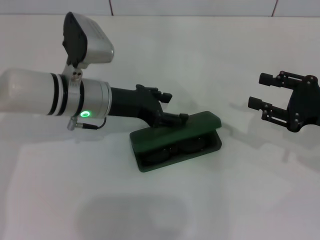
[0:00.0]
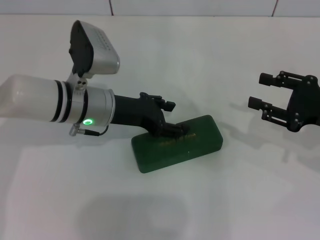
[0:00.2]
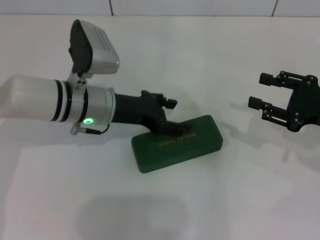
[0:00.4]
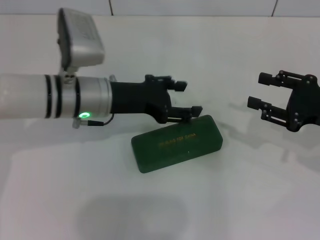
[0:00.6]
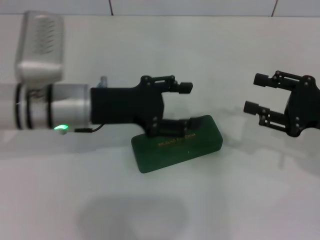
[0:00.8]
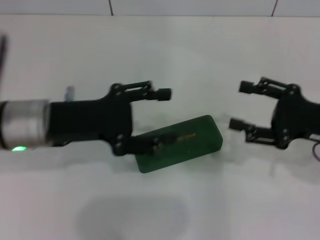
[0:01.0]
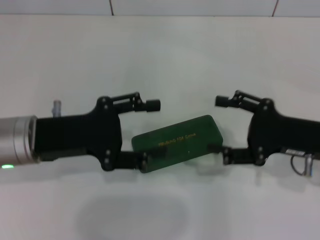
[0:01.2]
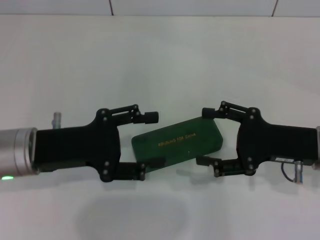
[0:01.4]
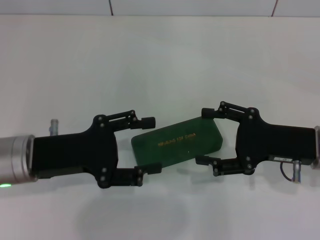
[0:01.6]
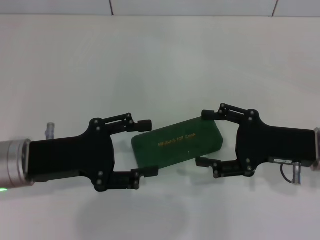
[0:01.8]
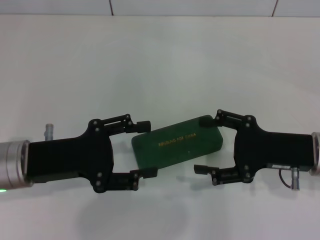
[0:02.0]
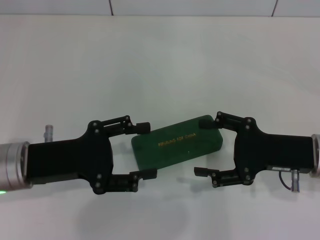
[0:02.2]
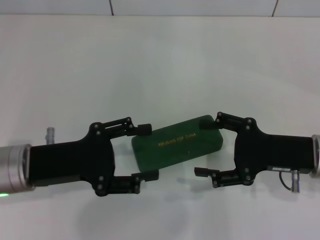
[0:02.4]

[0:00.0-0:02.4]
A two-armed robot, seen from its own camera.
0:00.0 to 0:01.2: The right gripper heads to the left, covering roughly 5 cm. The left gripper heads backward and to the left, covering some 10 cm.

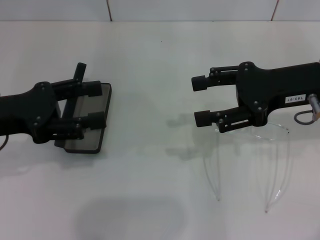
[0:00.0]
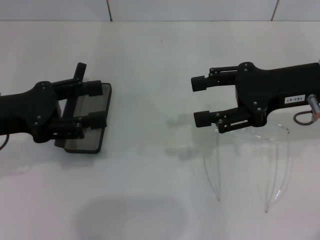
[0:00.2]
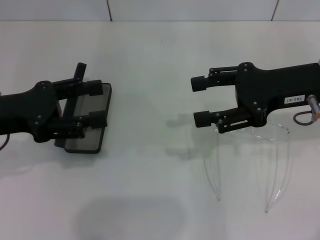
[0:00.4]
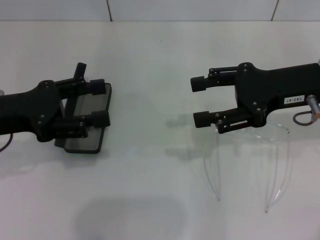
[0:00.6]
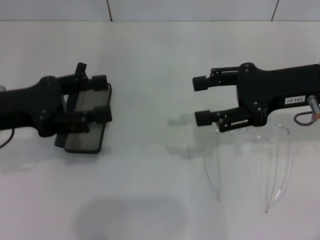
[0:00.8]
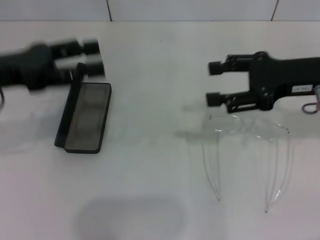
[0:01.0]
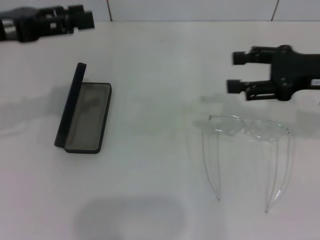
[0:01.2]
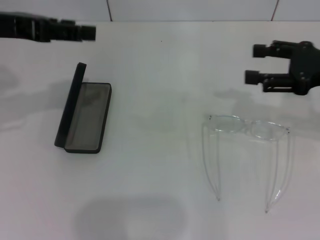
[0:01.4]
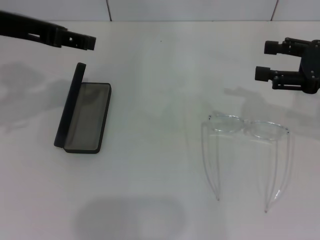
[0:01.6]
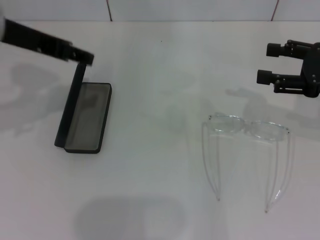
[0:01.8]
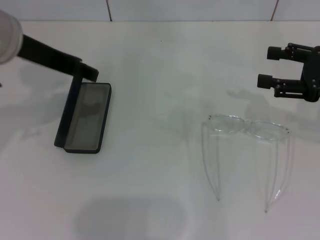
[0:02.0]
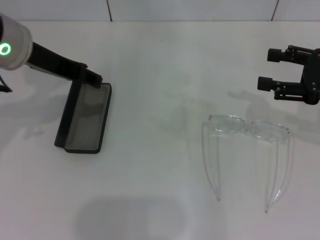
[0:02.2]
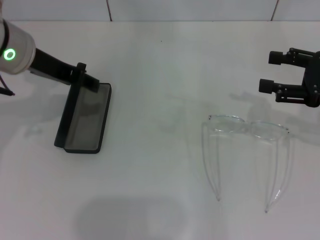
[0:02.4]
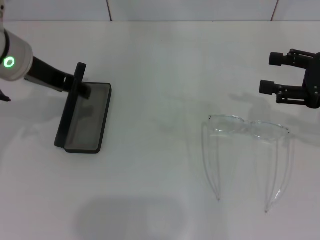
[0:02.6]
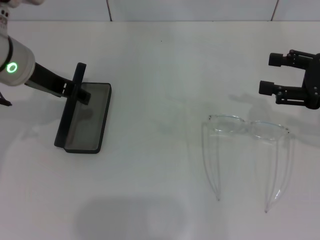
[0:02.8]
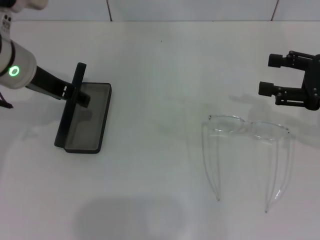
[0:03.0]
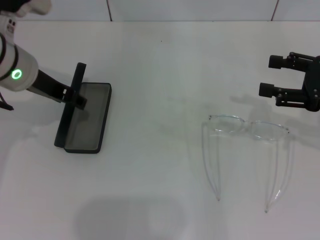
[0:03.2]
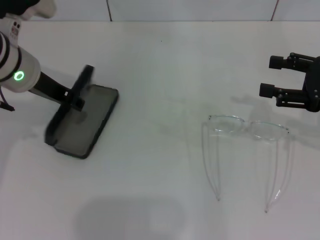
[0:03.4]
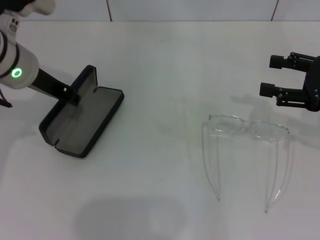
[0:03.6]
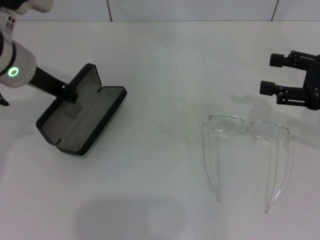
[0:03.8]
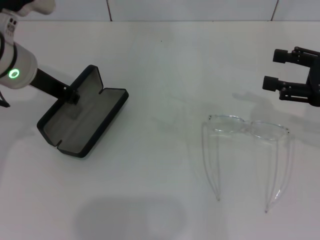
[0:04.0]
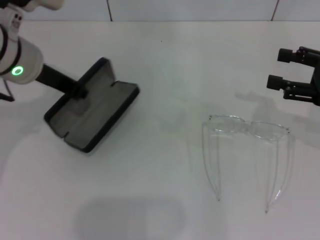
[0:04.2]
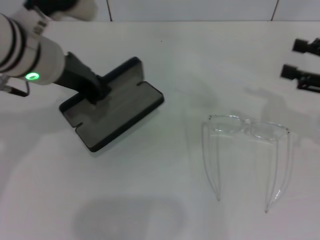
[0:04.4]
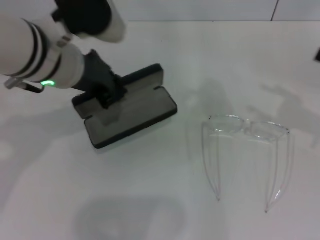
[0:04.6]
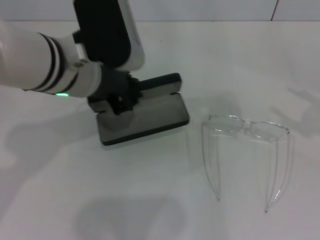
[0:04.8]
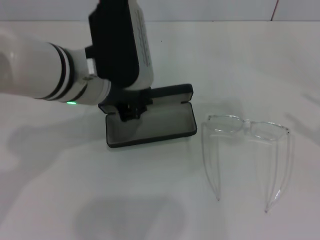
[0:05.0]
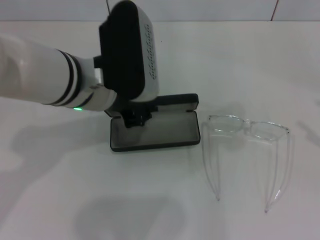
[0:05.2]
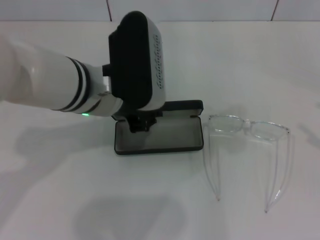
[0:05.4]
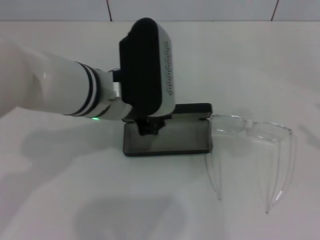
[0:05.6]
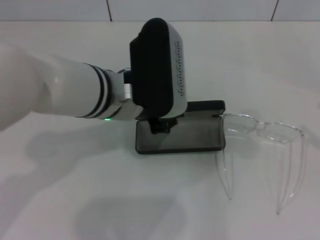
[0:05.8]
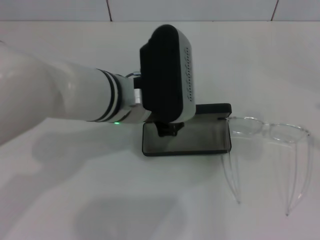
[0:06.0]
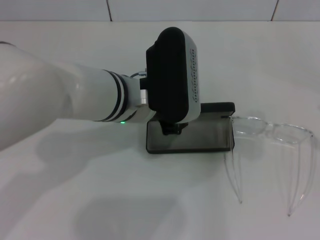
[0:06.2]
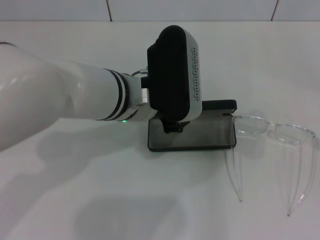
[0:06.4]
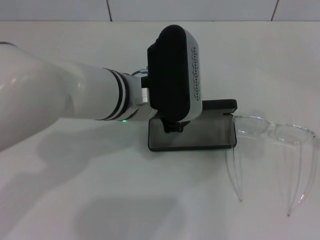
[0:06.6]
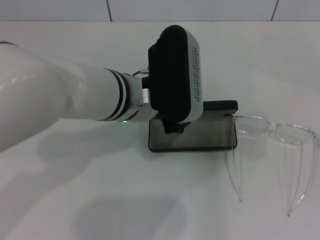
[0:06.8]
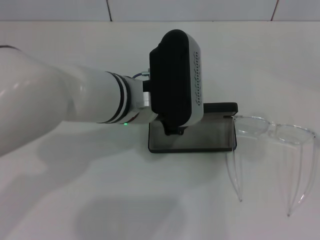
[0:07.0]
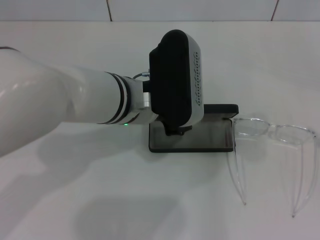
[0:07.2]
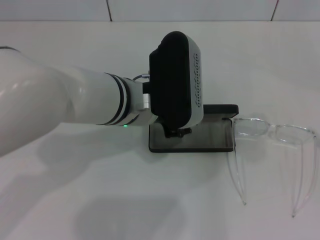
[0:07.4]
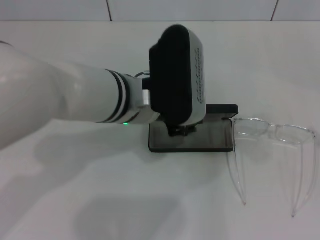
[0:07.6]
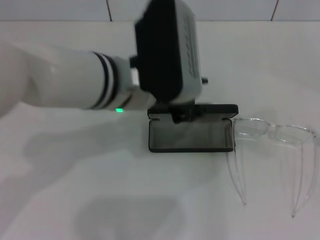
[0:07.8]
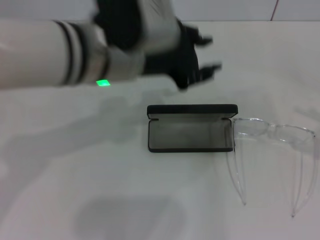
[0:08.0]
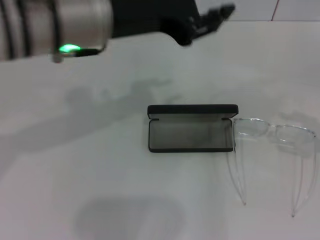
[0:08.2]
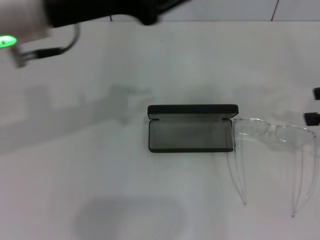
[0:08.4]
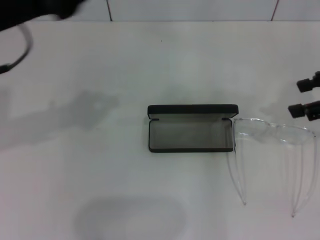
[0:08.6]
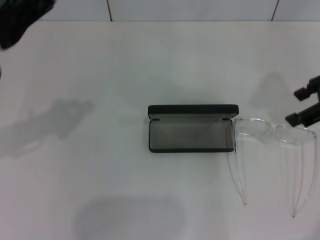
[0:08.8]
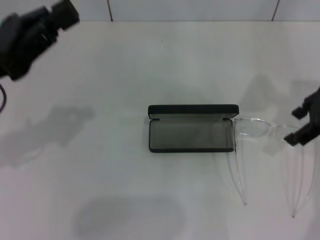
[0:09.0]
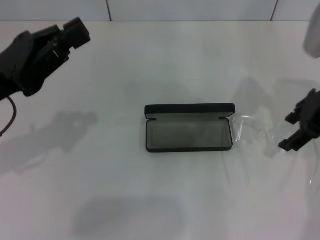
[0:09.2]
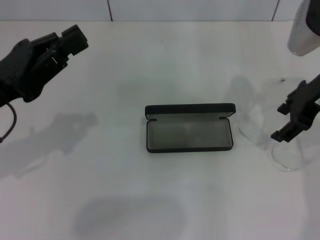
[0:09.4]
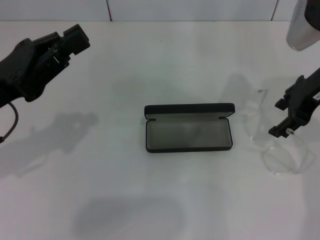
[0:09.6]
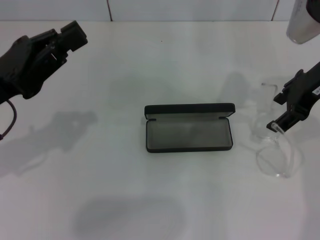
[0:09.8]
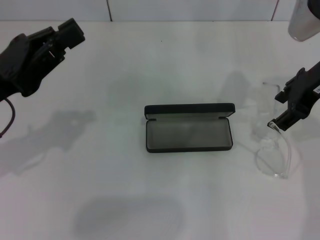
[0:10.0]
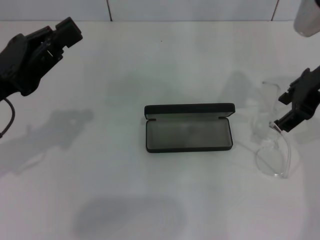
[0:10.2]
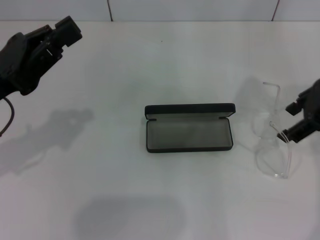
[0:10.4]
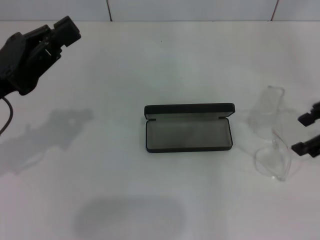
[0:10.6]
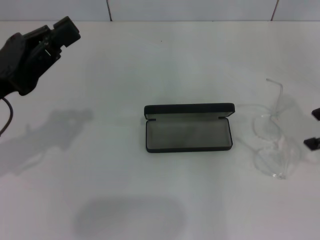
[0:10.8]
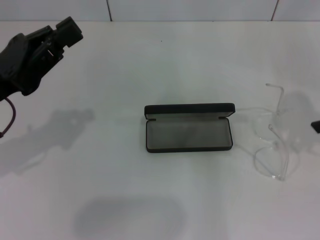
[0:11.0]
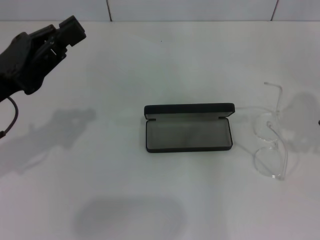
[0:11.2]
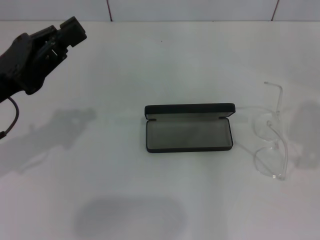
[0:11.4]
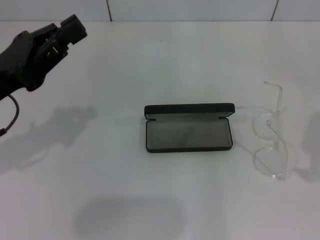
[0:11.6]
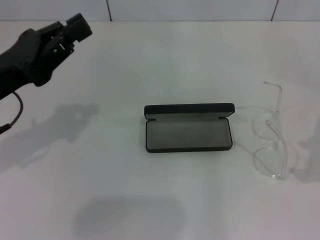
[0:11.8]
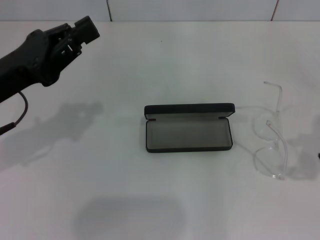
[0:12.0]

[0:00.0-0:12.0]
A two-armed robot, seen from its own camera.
Step, 0:00.0 to 0:03.2: Grab the glasses case with your left hand.
Step, 0:03.4 to 0:07.6: Place the glasses case in the center of the table with your left hand.
0:00.0 to 0:01.6: The right gripper shifts about 10 cm to the right; the left gripper heads upward, forward and to the right, covering approximately 15 cm.
0:01.6 to 0:03.0: The left gripper travels downward by about 10 cm.
0:03.0 to 0:04.4: The left gripper moves some 5 cm, and closes.
0:04.4 to 0:06.0: The left gripper travels to the right and downward by approximately 10 cm. The right gripper heads backward and to the right, covering about 15 cm.
0:06.0 to 0:07.6: The grippers move only a little.
0:07.6 to 0:09.0: The left gripper goes roughly 20 cm to the left, and closes. The right gripper is displaced forward and to the left by some 25 cm.
0:09.0 to 0:10.4: The grippers stay close to where they were, moving slightly.
0:10.4 to 0:12.0: The right gripper goes some 15 cm to the right and backward.

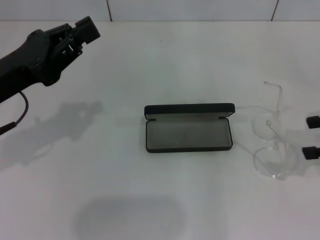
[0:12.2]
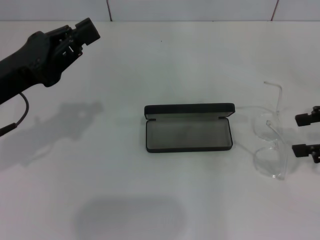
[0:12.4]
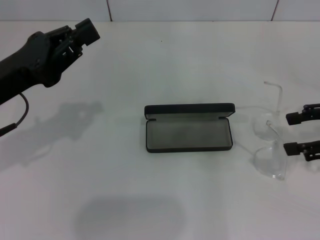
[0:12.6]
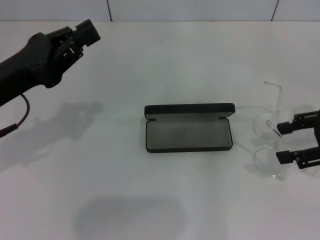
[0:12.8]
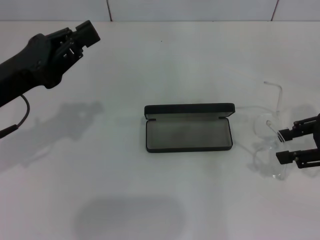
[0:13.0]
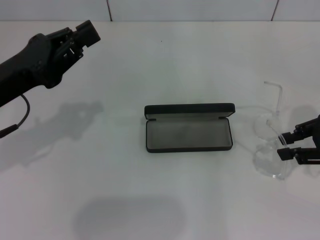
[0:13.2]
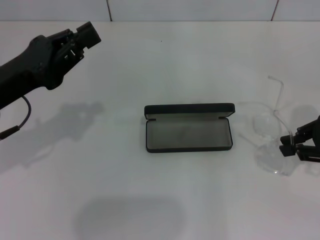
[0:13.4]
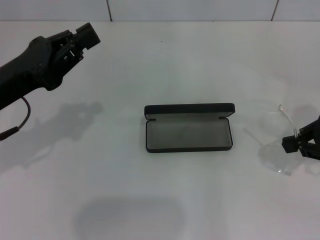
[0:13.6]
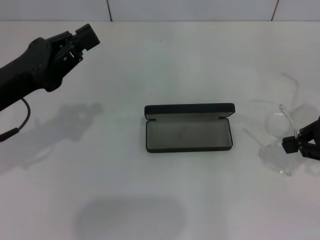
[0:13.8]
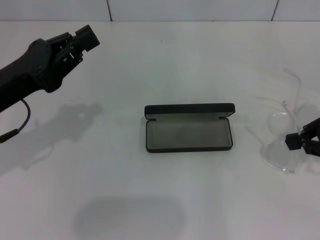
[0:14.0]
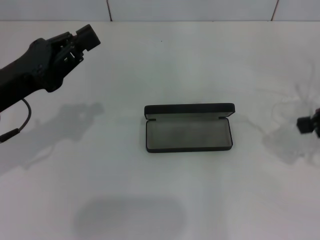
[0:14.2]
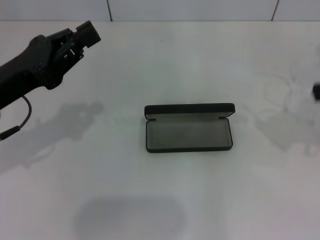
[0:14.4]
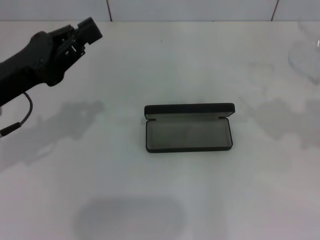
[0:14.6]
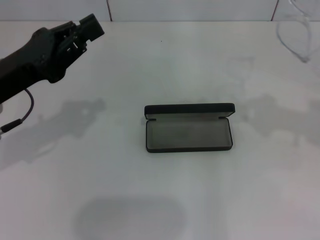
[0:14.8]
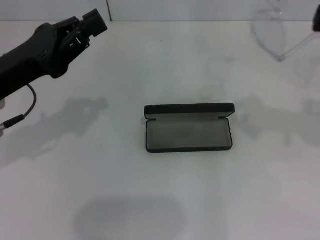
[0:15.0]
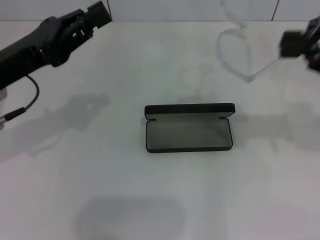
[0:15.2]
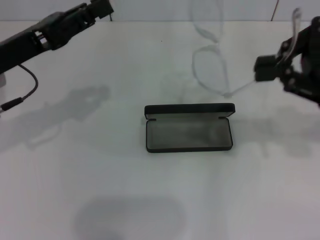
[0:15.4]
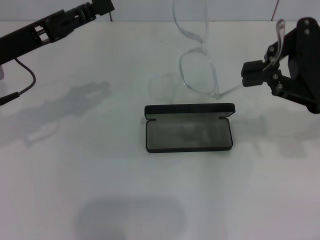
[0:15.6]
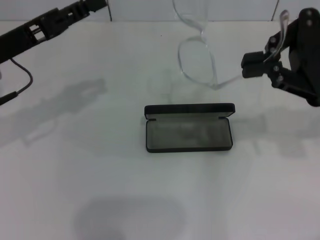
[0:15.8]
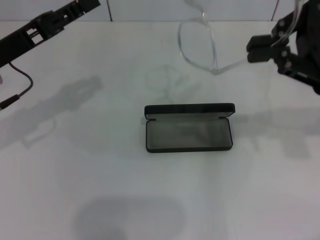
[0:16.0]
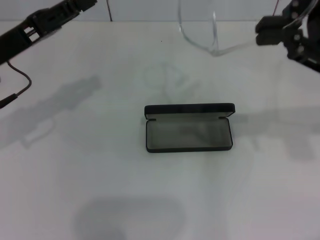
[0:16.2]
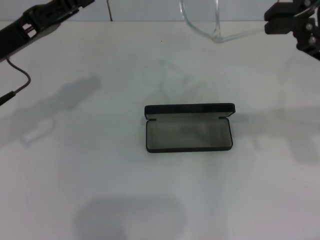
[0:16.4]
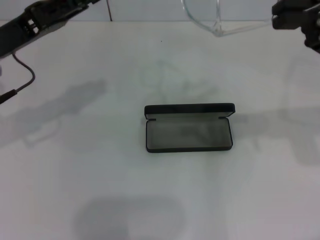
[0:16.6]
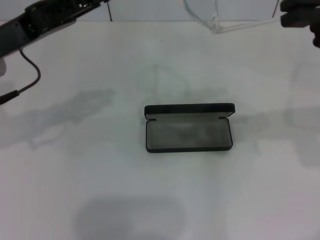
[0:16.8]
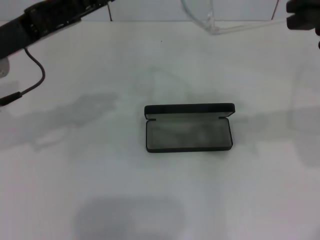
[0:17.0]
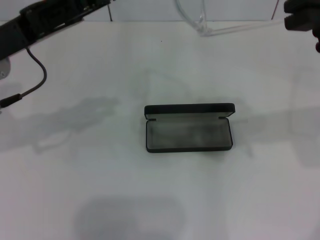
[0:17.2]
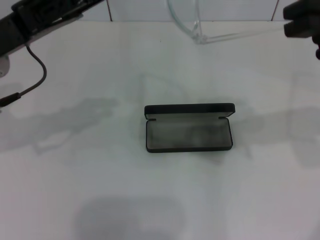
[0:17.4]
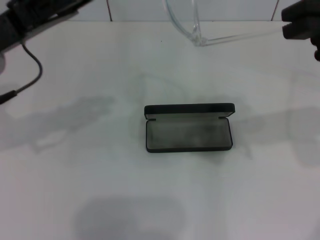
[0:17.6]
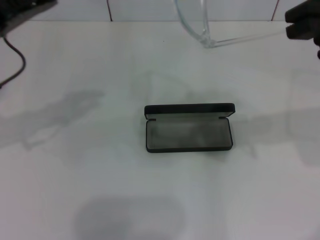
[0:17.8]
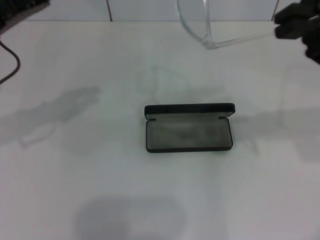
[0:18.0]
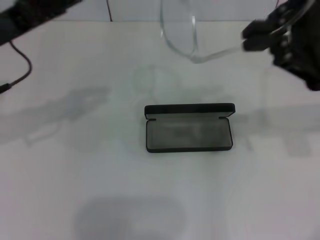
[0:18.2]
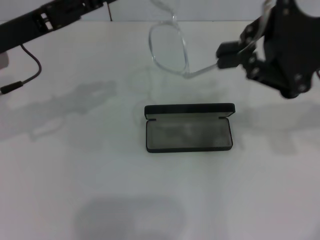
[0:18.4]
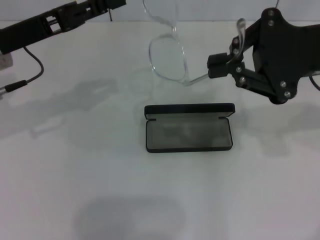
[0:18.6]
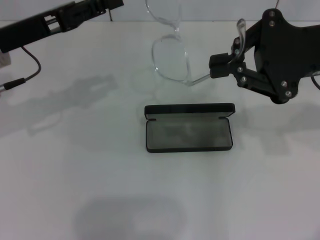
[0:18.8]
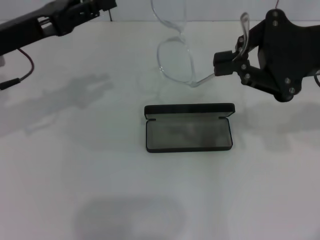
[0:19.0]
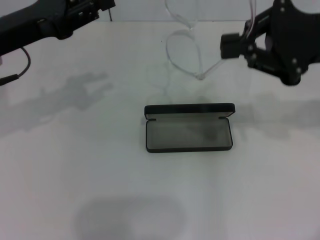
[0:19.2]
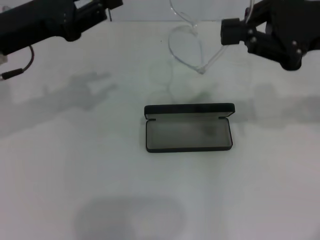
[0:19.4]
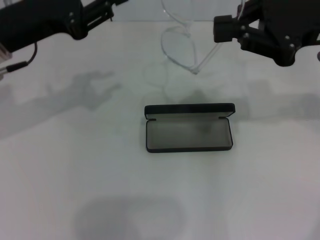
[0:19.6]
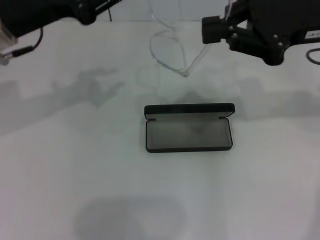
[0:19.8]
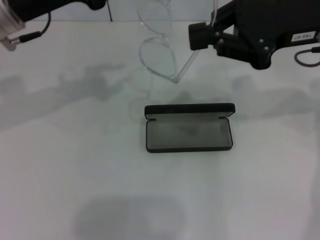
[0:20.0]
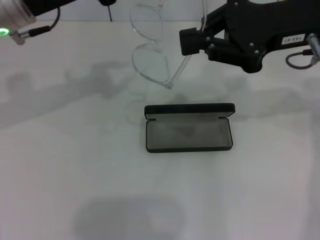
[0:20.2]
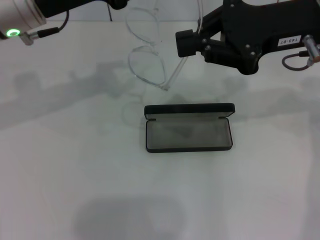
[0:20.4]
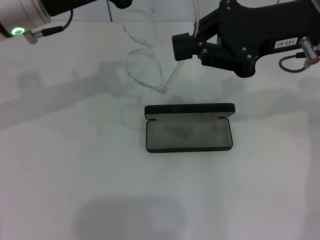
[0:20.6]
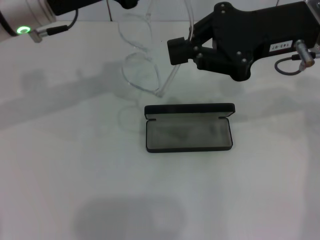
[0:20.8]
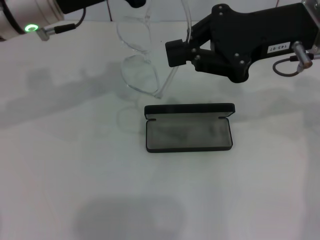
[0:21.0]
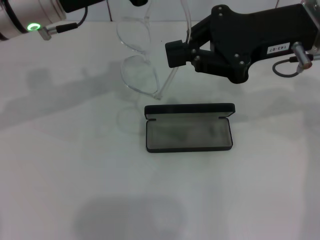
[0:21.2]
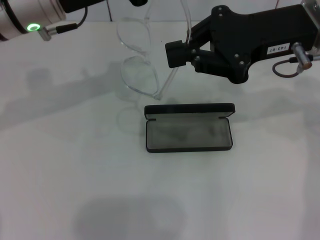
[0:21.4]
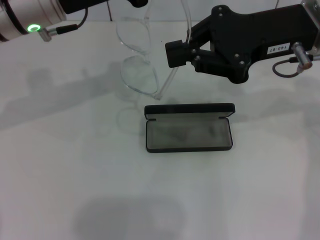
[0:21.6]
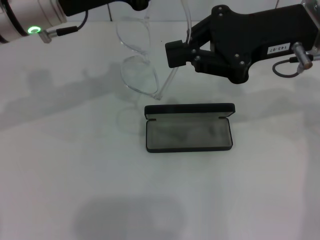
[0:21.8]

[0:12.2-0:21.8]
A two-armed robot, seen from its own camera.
0:12.2 to 0:13.8: The right gripper closes up.
0:13.8 to 0:15.4: The right gripper is displaced upward by about 10 cm.
0:18.6 to 0:20.2: The left gripper moves about 5 cm.
0:20.2 to 0:21.8: The grippers make only small movements.
